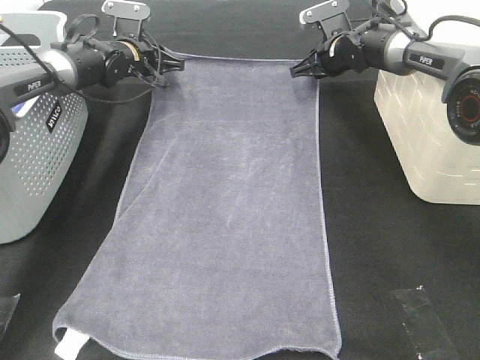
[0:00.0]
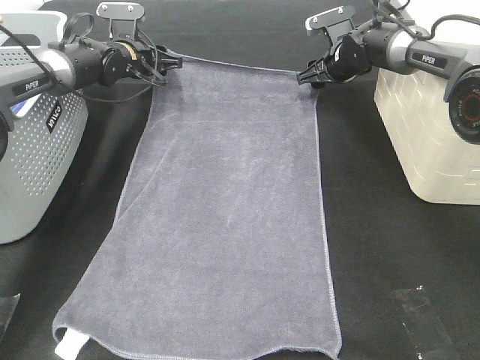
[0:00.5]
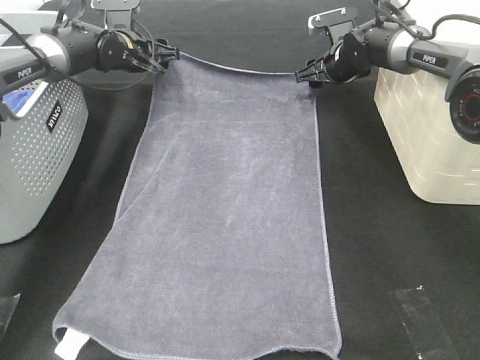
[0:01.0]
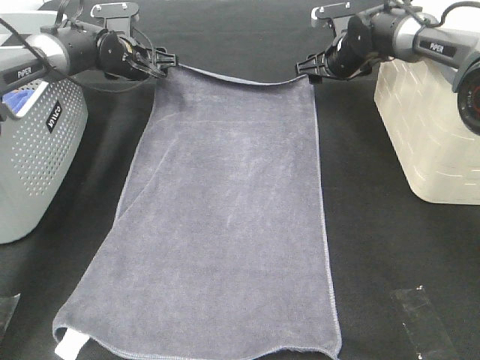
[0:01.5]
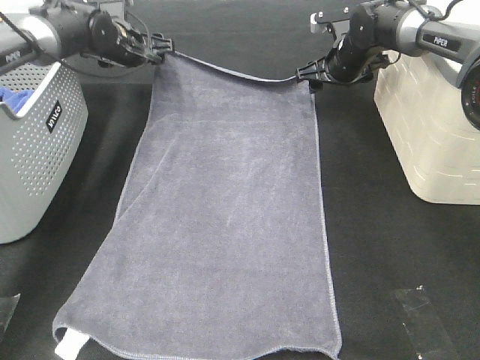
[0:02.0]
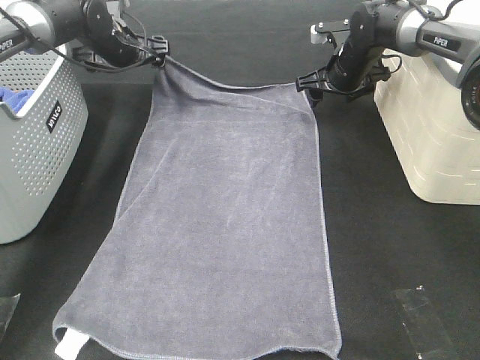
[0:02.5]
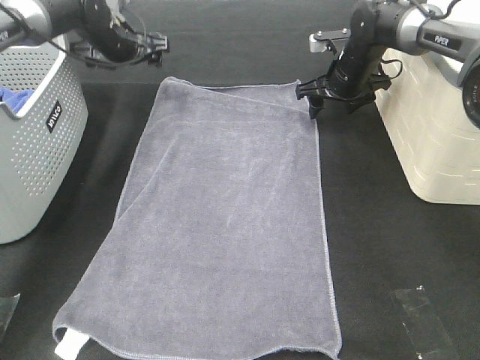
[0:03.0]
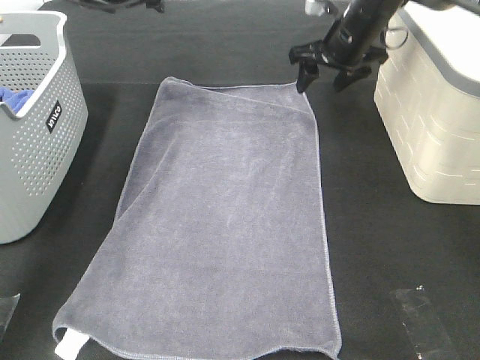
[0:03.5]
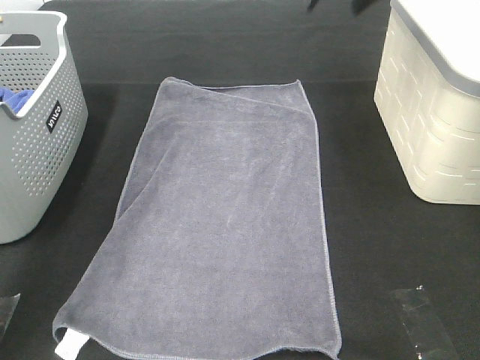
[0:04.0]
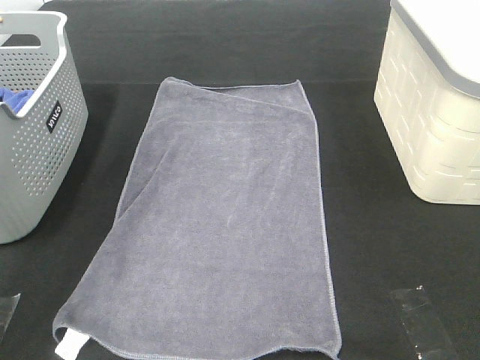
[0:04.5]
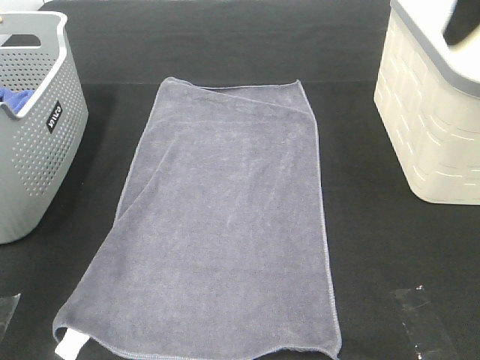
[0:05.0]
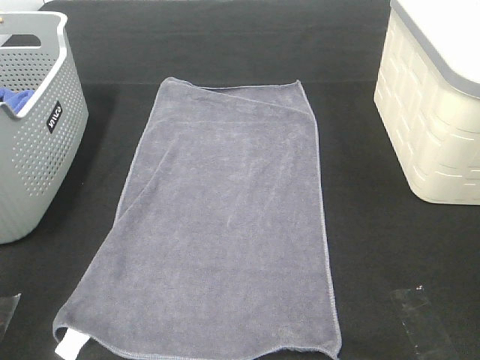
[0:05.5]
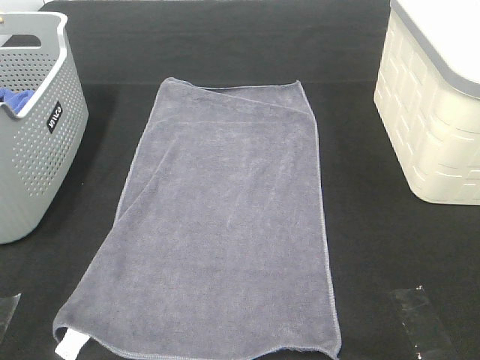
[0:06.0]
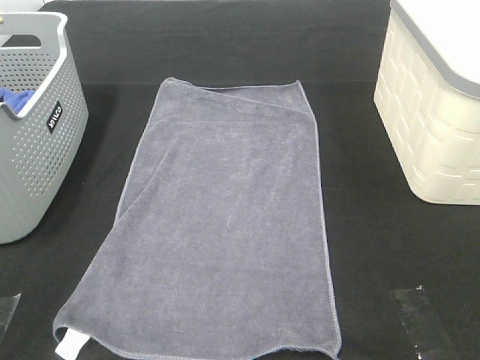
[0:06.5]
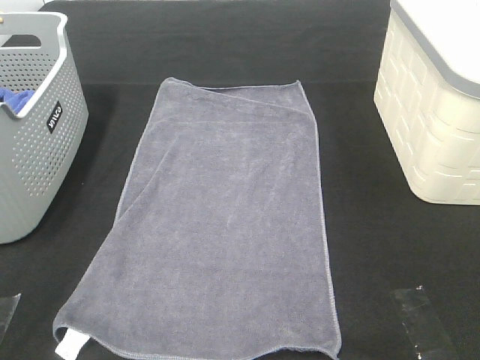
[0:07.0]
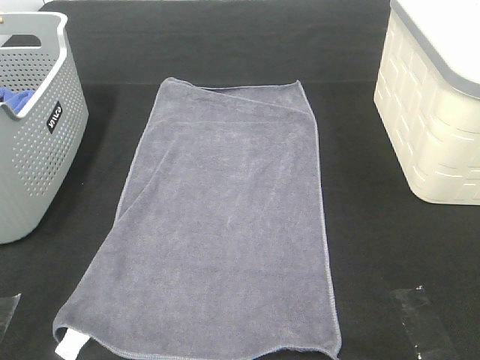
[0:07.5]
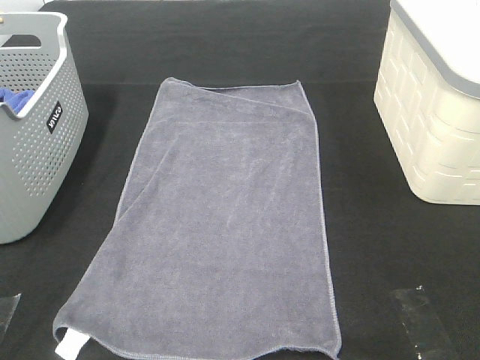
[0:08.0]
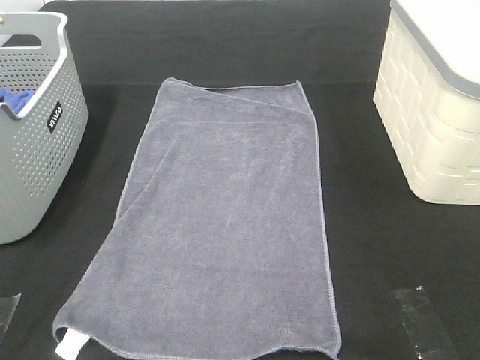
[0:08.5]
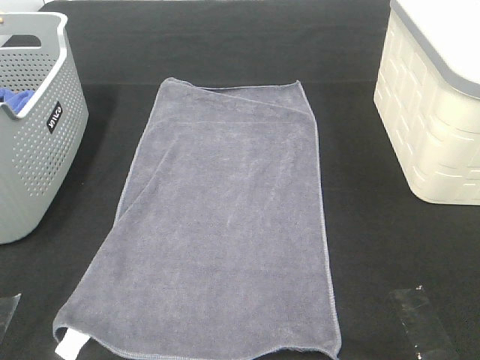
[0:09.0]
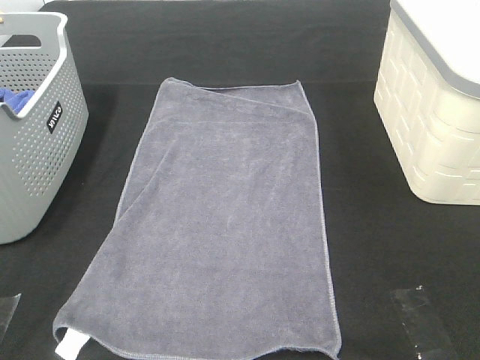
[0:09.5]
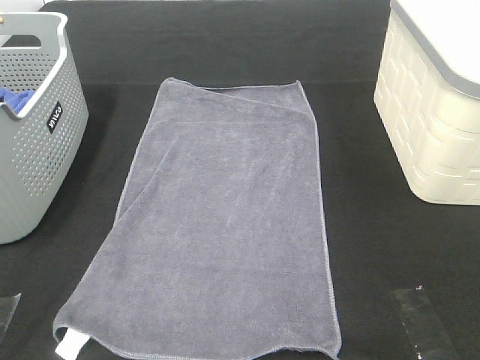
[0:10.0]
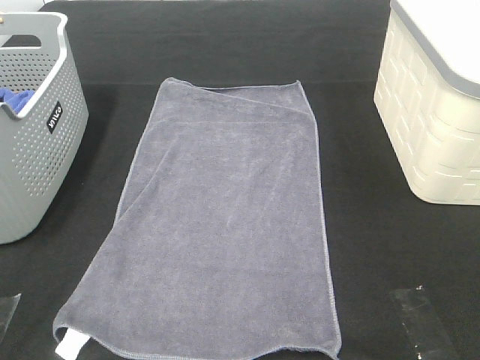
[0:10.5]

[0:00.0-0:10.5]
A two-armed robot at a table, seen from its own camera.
Task of the whole recording: Remove the towel and place it.
0:00.0 to 0:02.0: The left gripper opens its fingers. The right gripper opens up.
0:02.0 to 0:04.0: The grippers both shift upward and backward by some 25 cm.
0:04.0 to 0:06.5: The two grippers go some 40 cm backward.

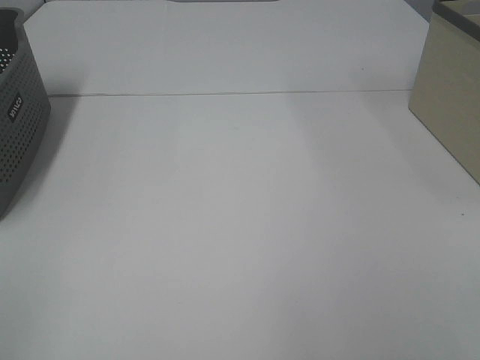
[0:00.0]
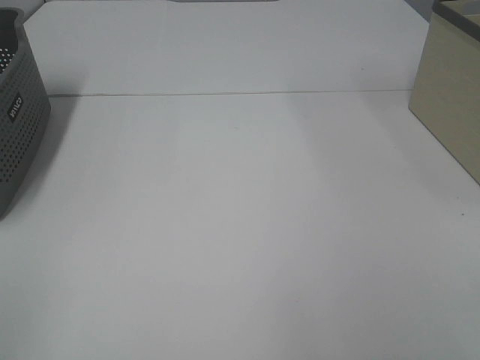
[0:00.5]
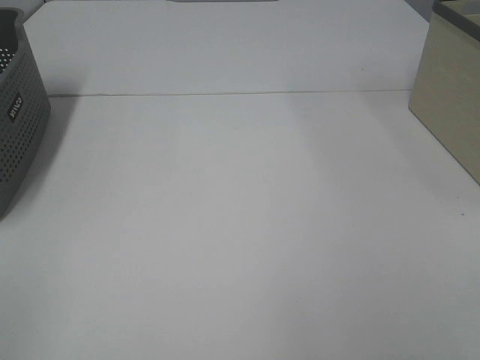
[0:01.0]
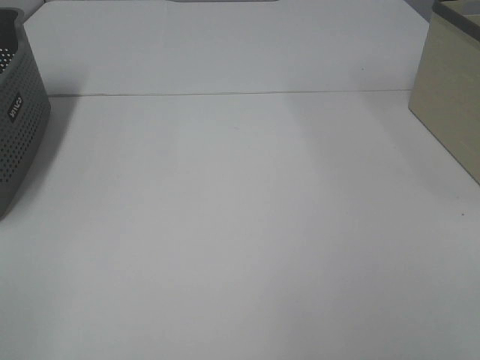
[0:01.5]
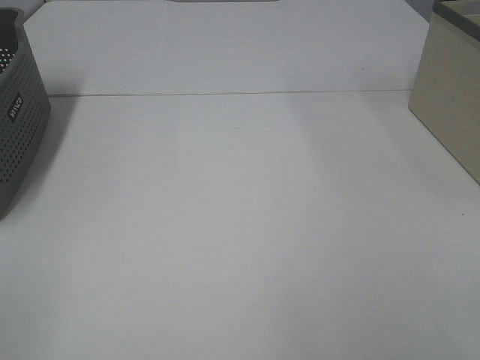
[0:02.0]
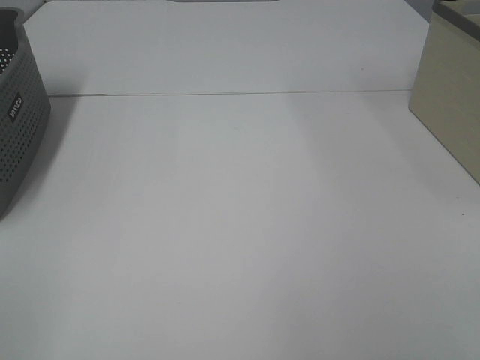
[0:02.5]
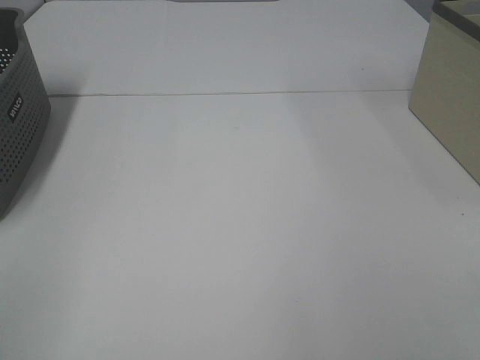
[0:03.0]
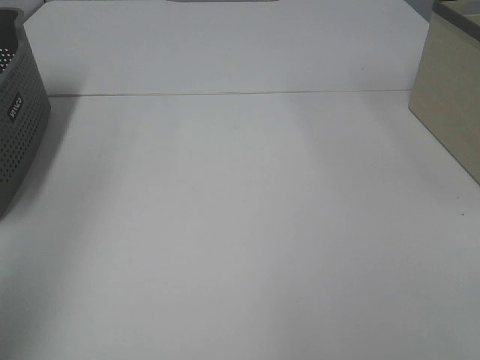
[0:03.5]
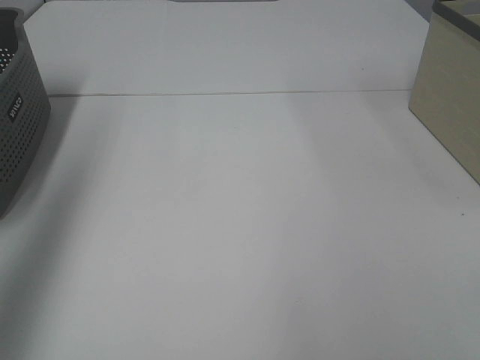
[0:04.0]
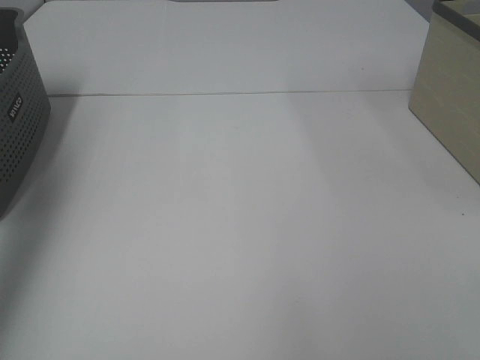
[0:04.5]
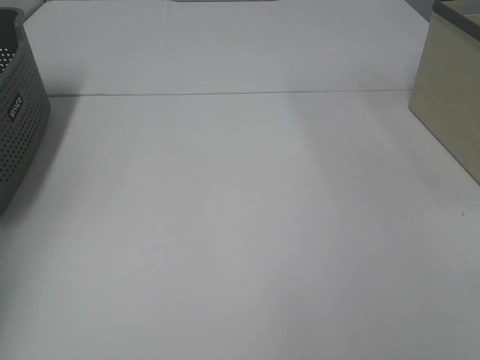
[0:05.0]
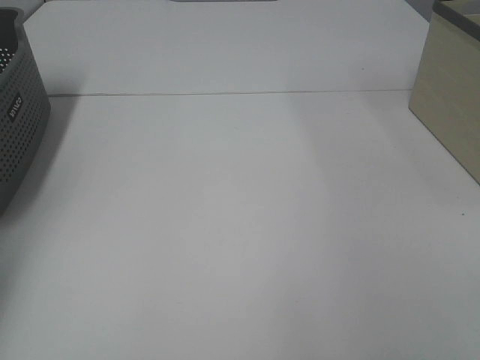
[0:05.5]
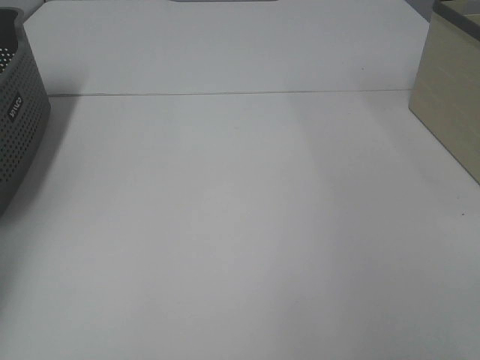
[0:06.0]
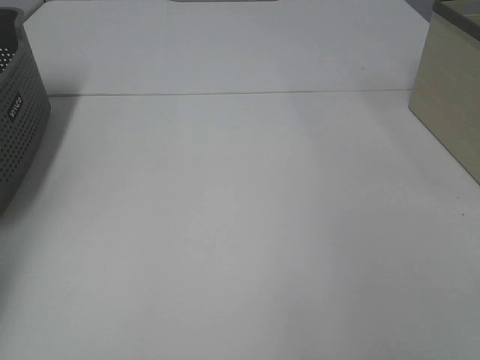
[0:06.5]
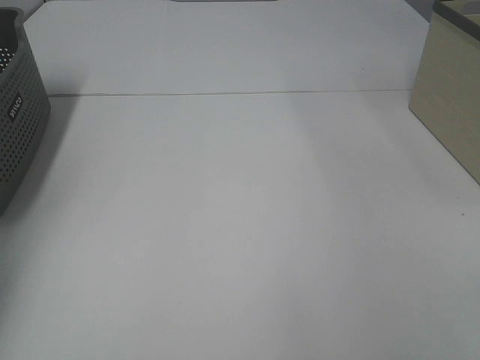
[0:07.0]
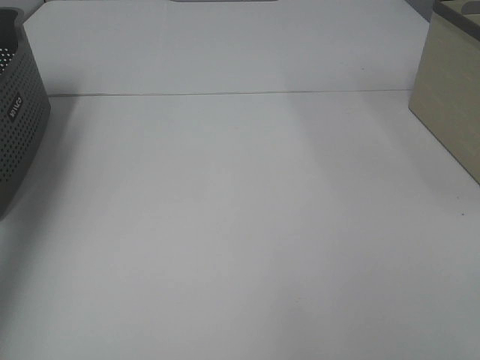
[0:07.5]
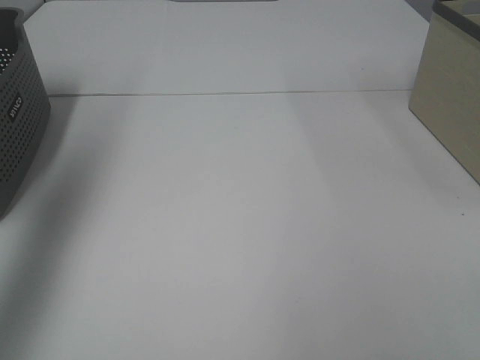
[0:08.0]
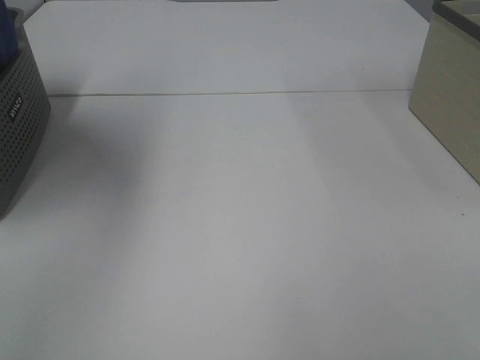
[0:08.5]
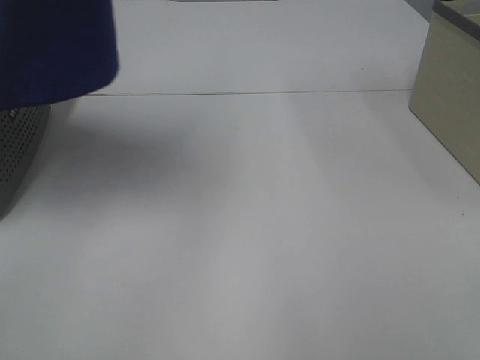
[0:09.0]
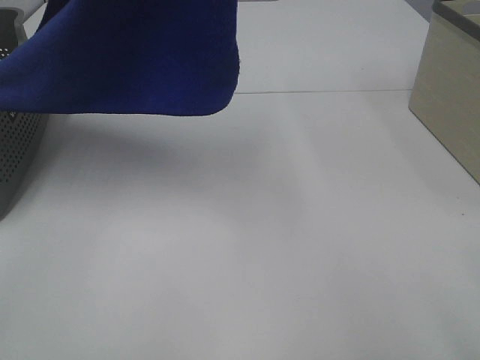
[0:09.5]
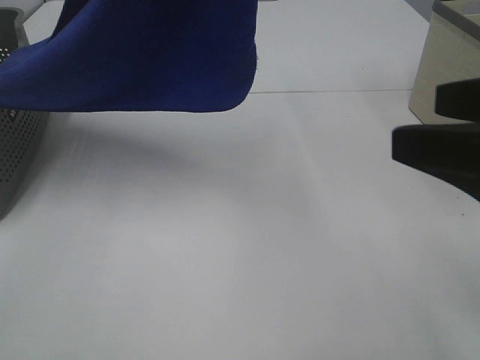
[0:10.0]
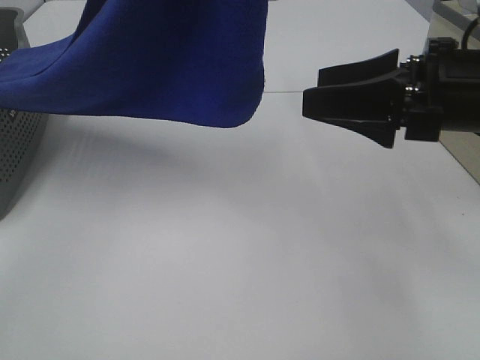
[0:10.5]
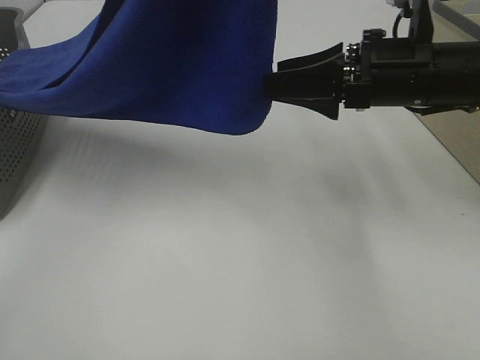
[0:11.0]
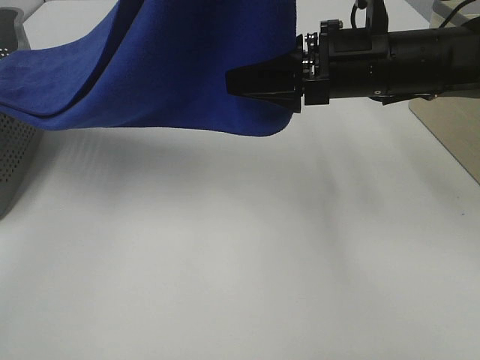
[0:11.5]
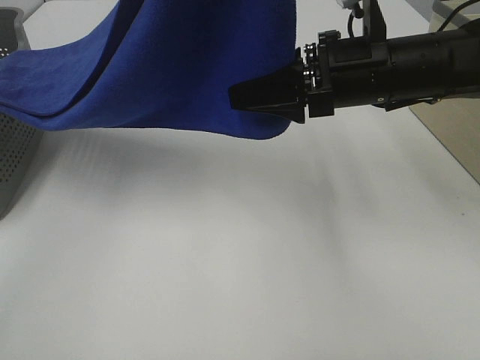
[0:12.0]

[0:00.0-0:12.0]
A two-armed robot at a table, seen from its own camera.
Task of the whole recording: Remove the towel and place it.
0:00.0 to 0:02.0: Both grippers stay about where they are.
0:02.0 to 0:04.0: The left gripper goes about 25 cm forward and upward.
0:04.0 to 0:06.0: The left gripper is displaced downward, forward and to the left by about 35 cm, and closes.
0:06.0 to 0:08.0: The left gripper moves upward and backward, some 30 cm, and closes its fingers.
0:08.0 to 0:10.0: The left gripper shifts roughly 25 cm to the right, while the right gripper heads forward, covering approximately 15 cm.
0:10.0 to 0:12.0: The right gripper shifts roughly 20 cm forward and to the left.

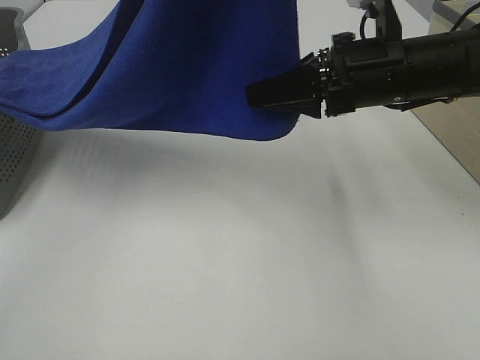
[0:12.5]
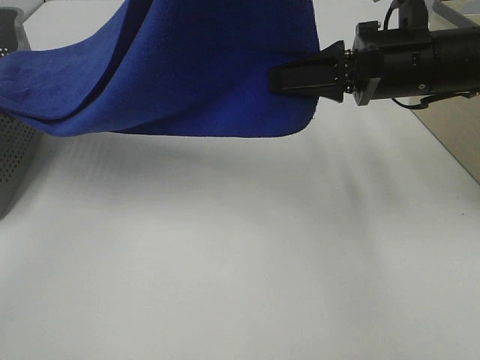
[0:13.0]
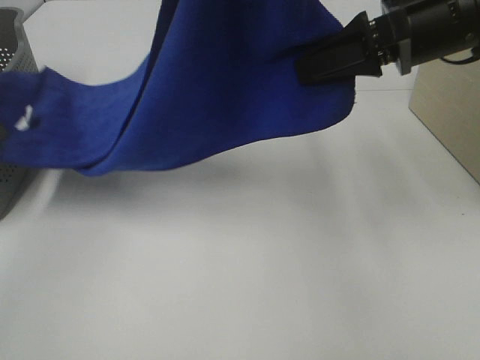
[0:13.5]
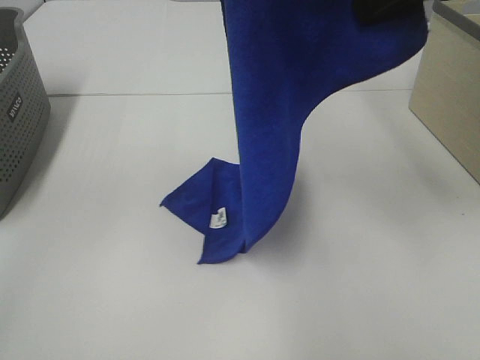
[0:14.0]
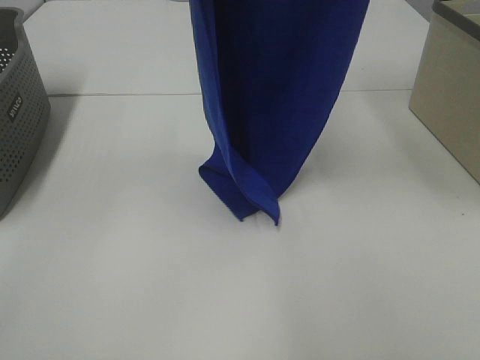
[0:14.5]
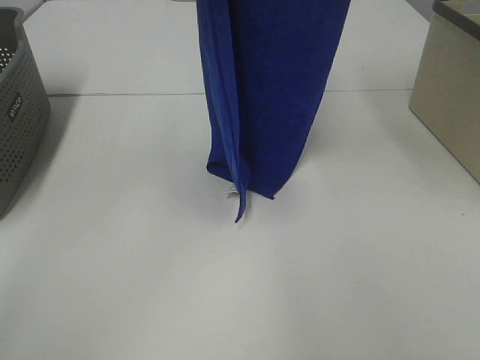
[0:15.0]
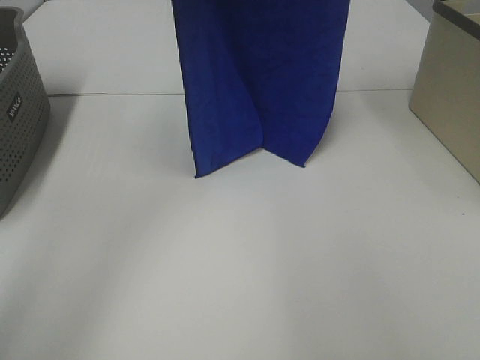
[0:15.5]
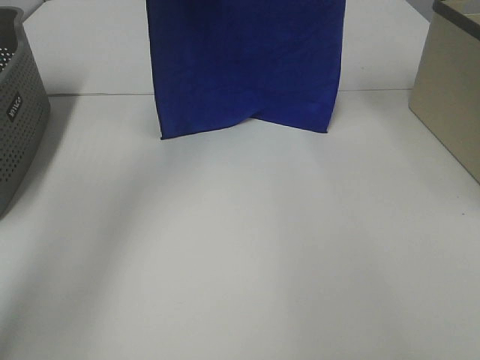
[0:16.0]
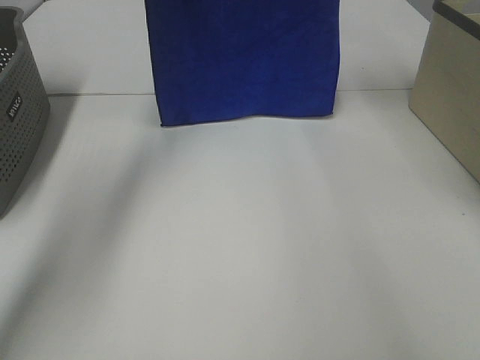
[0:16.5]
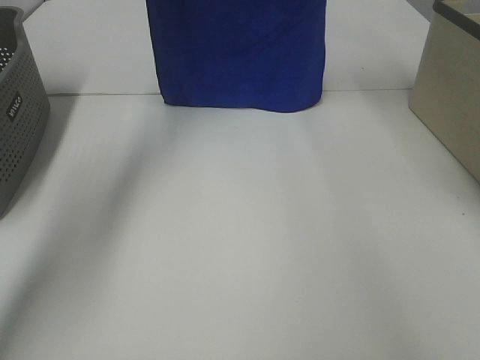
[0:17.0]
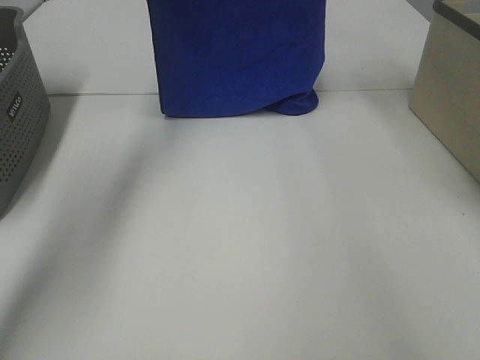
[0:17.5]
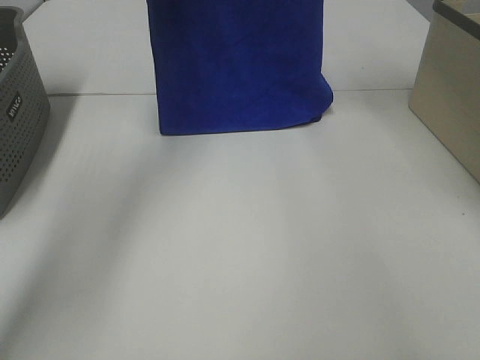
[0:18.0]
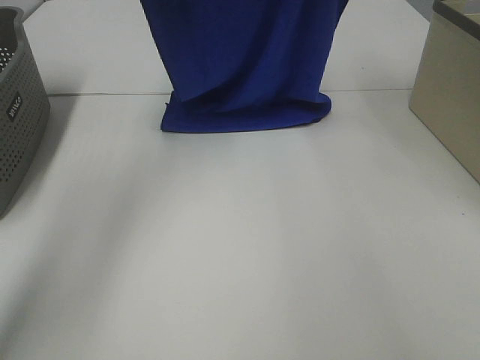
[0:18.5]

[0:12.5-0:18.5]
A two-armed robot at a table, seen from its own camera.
Task of the whole recording: Remove the towel and place it.
0:12.5 to 0:14.5: The right gripper is displaced upward by some 25 cm. The left gripper is displaced to the left by some 5 cm.
0:14.5 to 0:16.5: Both grippers travel together forward, some 20 cm.
0:16.5 to 0:18.5: Both grippers move backward, about 5 cm.
